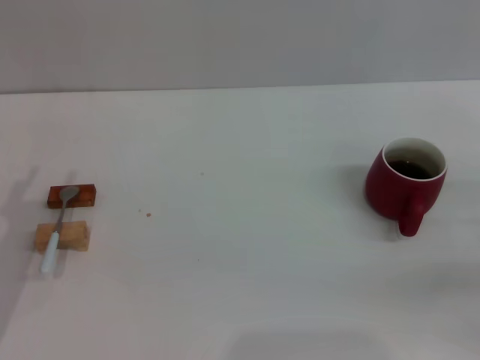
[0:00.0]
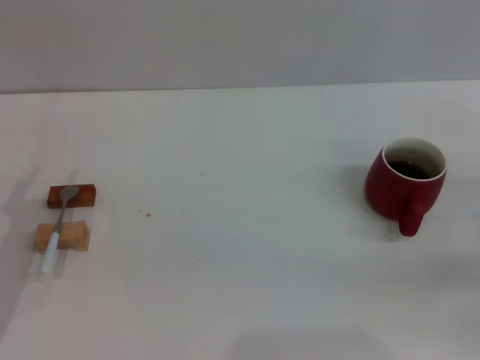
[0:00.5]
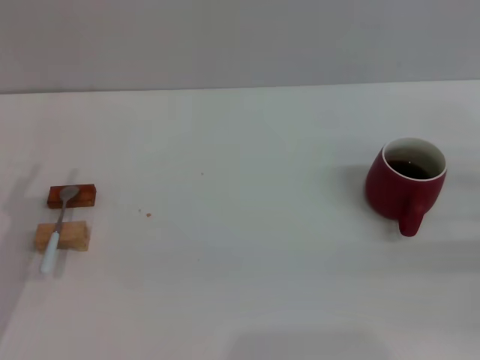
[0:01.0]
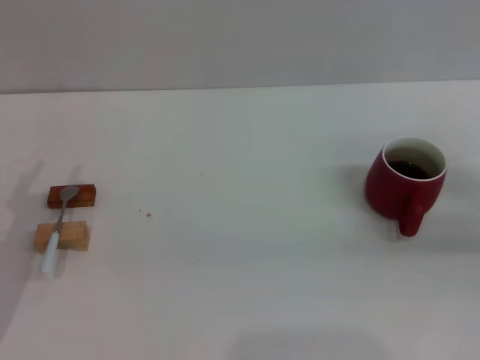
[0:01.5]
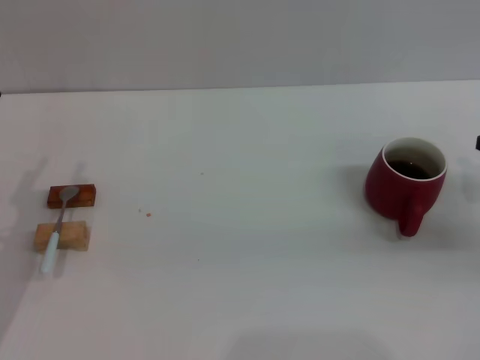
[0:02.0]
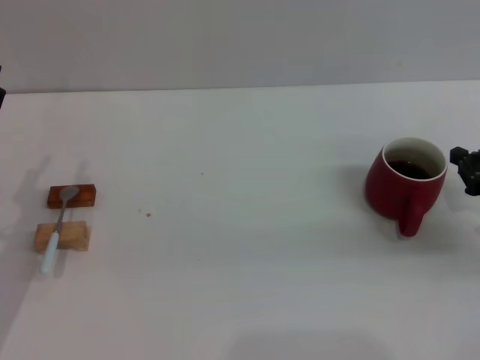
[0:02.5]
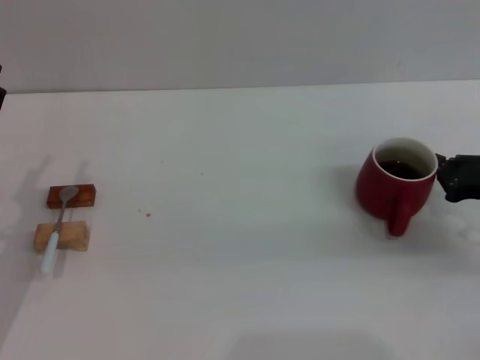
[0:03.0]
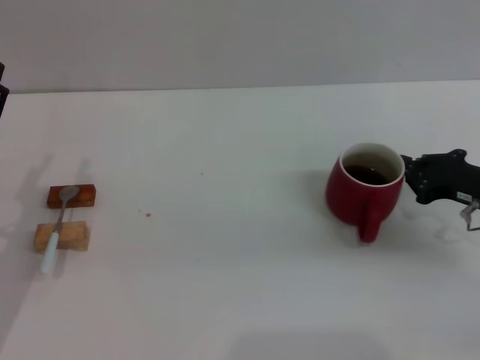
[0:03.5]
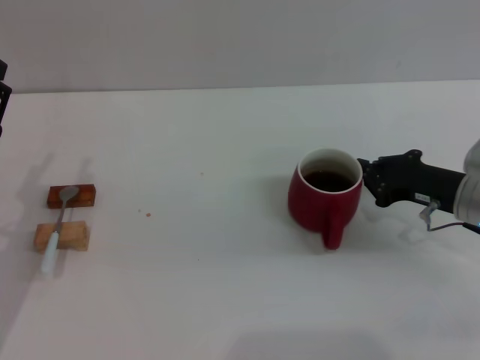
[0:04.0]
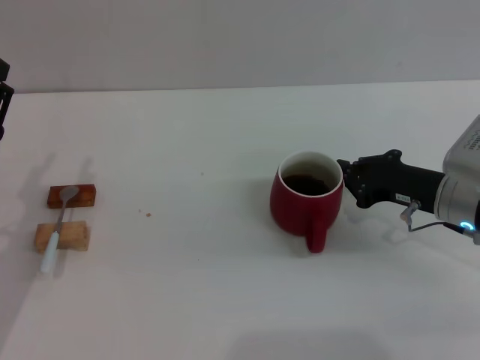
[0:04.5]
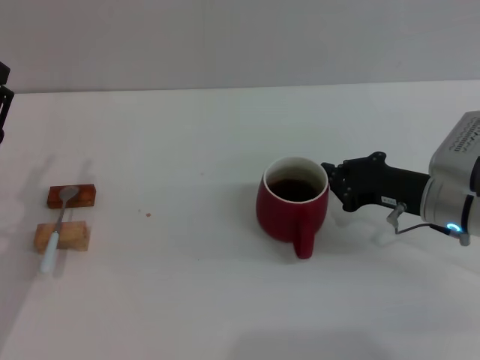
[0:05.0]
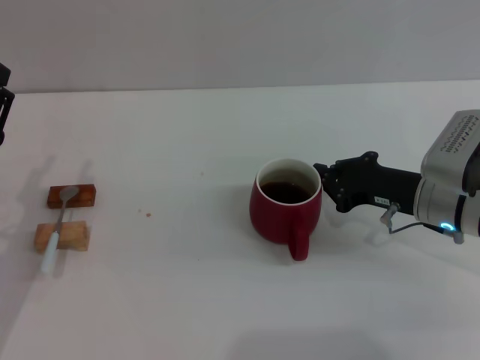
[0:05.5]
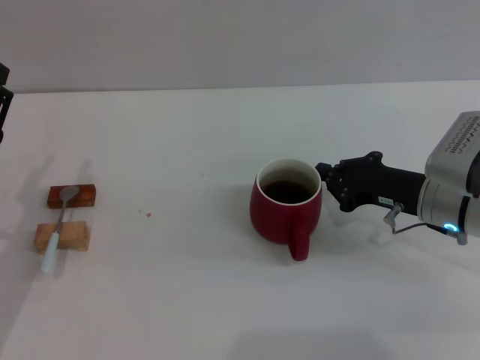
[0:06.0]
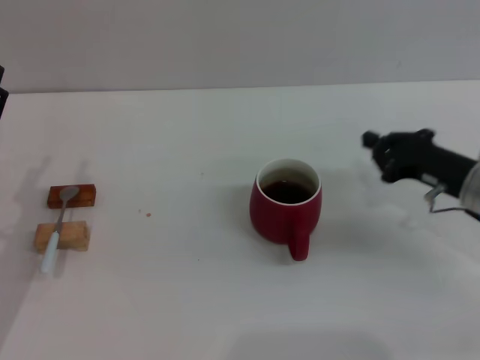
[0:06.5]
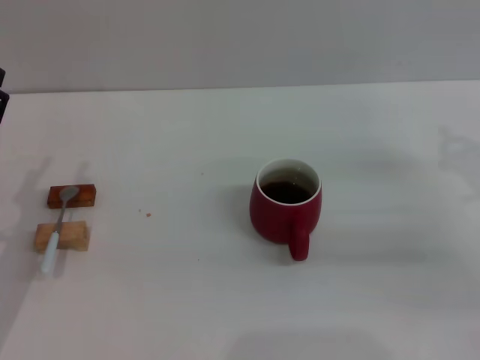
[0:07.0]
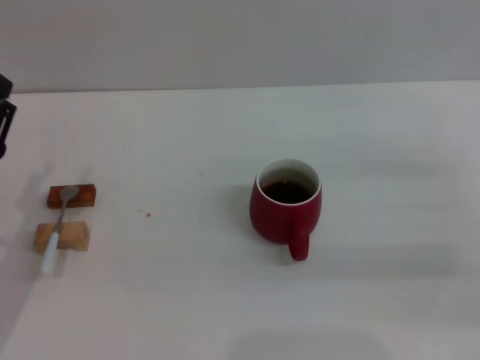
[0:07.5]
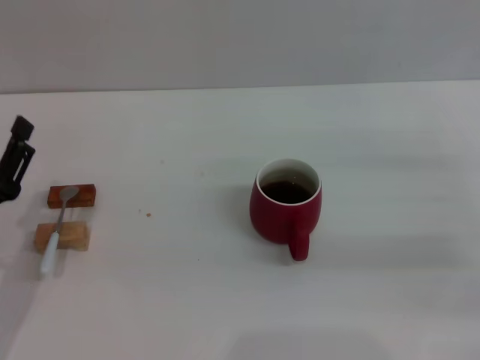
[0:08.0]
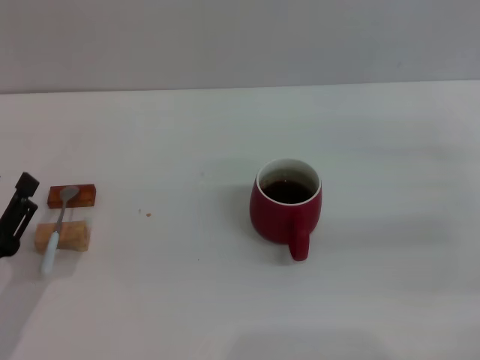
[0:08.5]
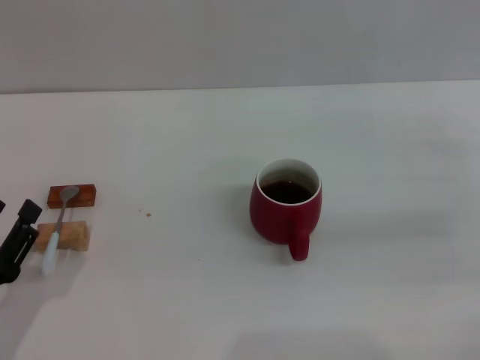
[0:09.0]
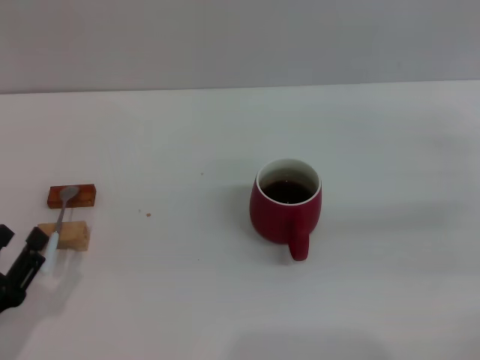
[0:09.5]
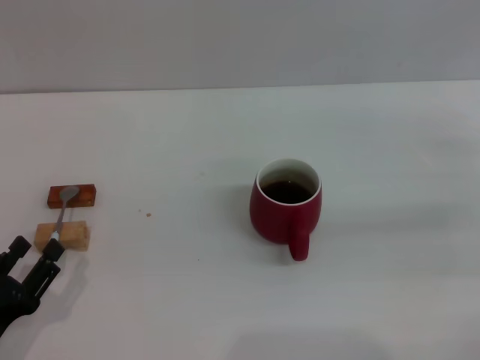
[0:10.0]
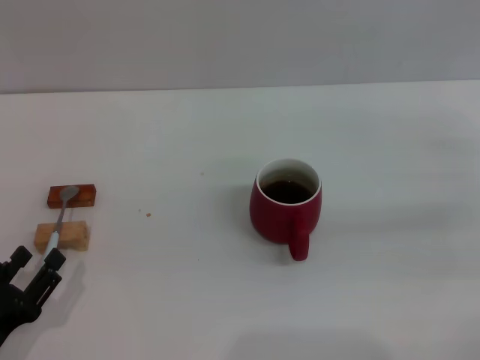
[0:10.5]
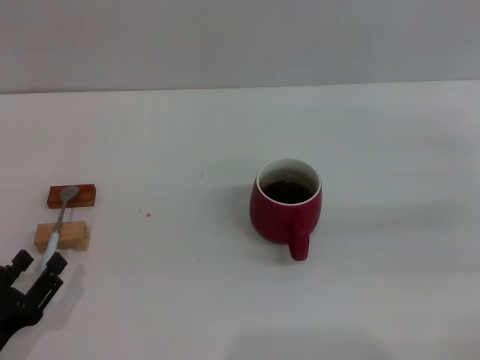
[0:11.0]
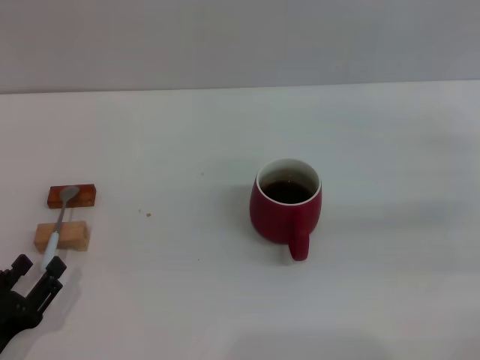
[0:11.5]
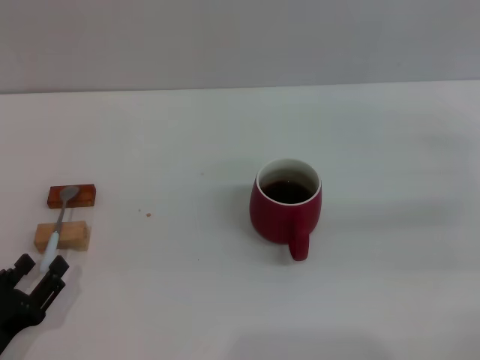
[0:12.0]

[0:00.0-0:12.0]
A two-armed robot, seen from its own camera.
Task of the whole recording: Move the red cup to the center, lift the blue spoon, stir it three times in the cup, and put the spoon into the cup.
Step, 0:00.0 to 0:06.0: Move the cup with coffee to the center of view with the right gripper.
0:00.0 to 0:02.0: The right gripper closes its fingers.
0:02.0 to 0:04.0: The right gripper goes roughly 10 cm to the left.
0:04.0 to 0:06.0: There are only small adjustments of the grippers.
0:06.0 to 0:08.0: The right gripper shifts about 15 cm to the right, and opens up.
0:08.0 to 0:10.0: The left gripper heads backward, covering approximately 5 cm.
0:10.0 to 0:12.0: The grippers make only small movements.

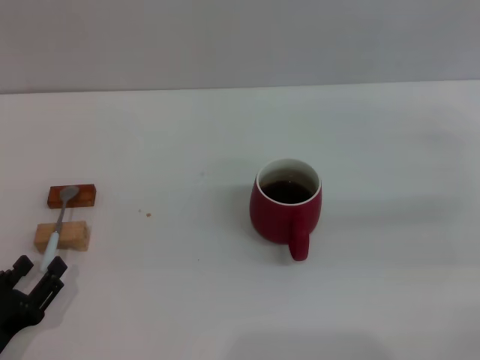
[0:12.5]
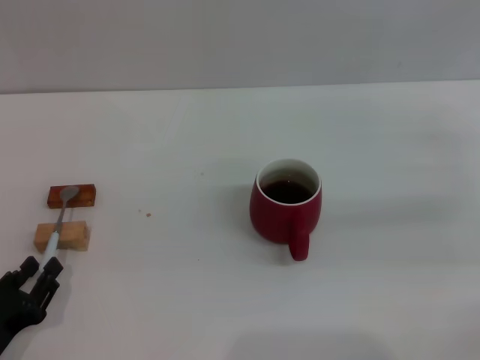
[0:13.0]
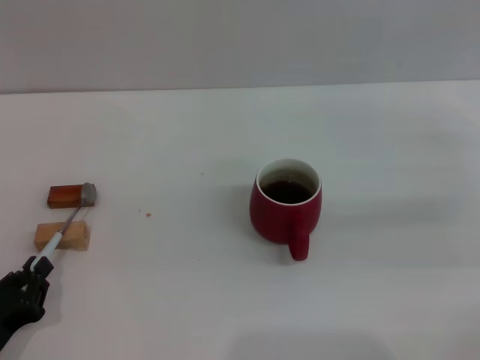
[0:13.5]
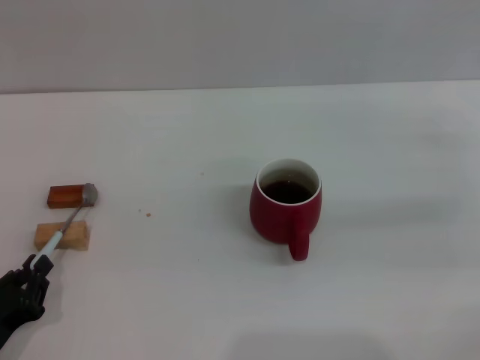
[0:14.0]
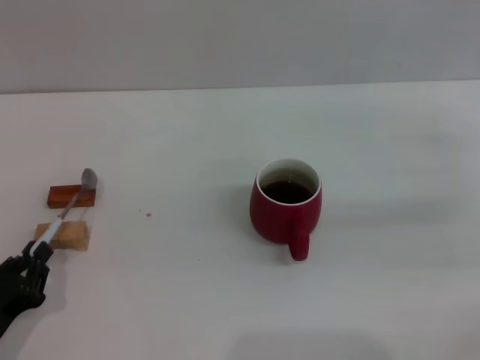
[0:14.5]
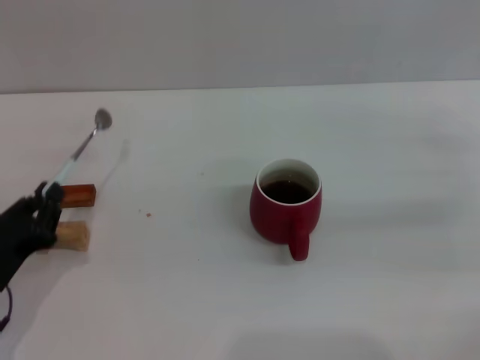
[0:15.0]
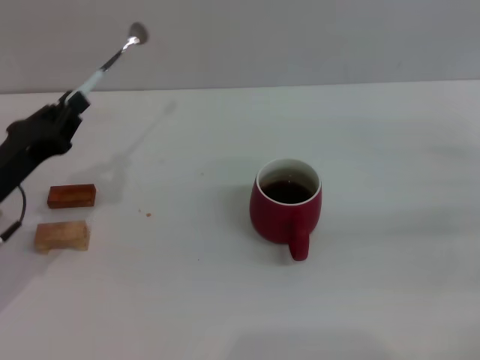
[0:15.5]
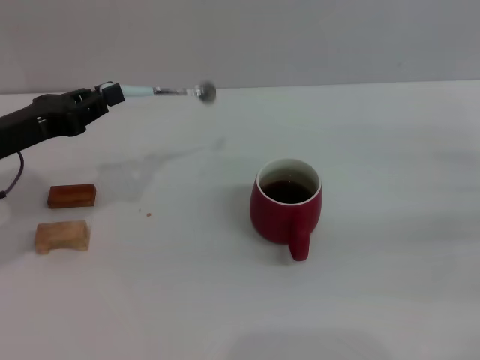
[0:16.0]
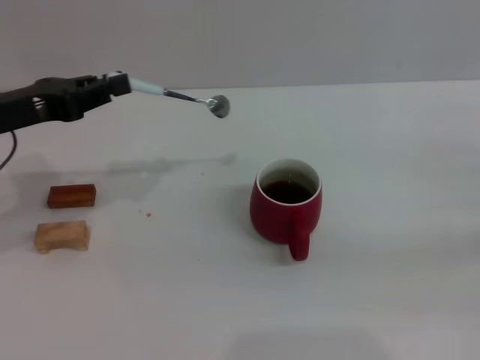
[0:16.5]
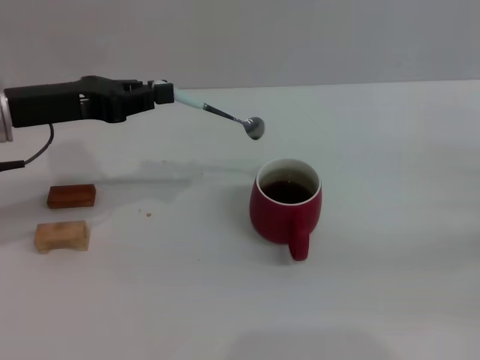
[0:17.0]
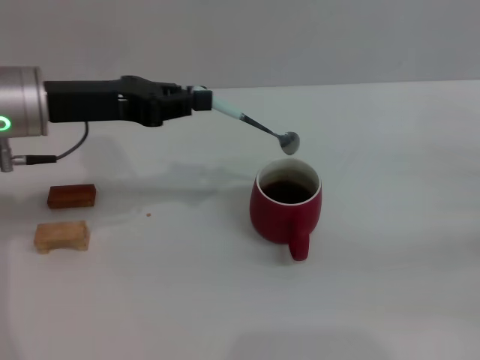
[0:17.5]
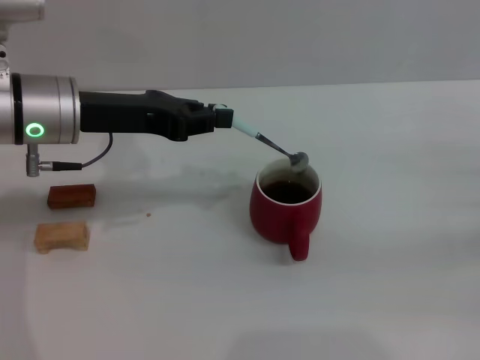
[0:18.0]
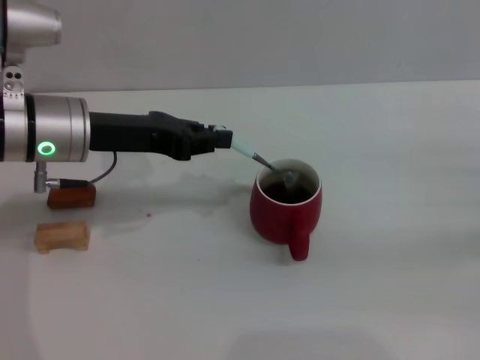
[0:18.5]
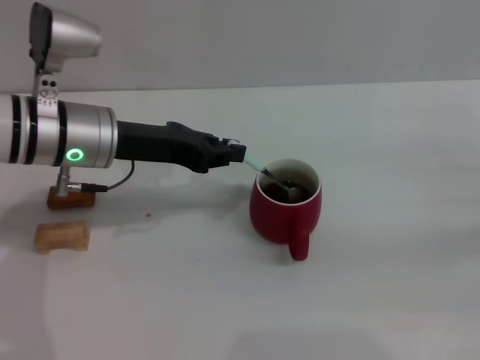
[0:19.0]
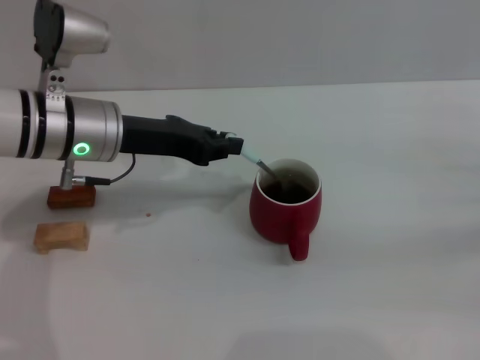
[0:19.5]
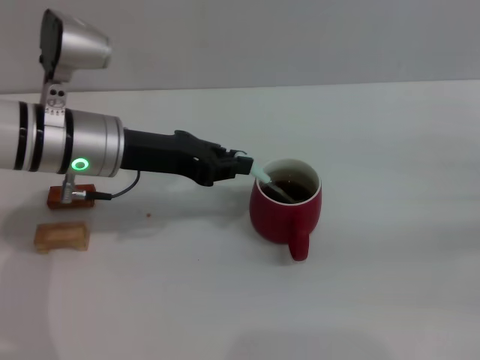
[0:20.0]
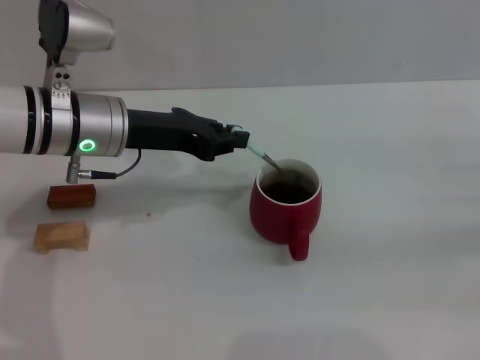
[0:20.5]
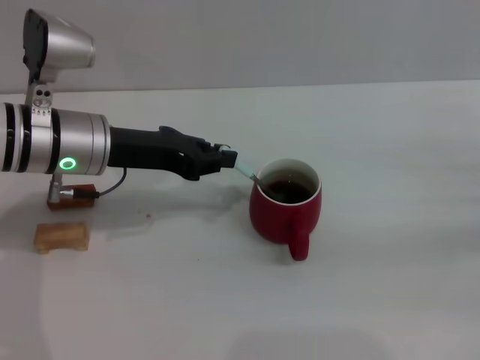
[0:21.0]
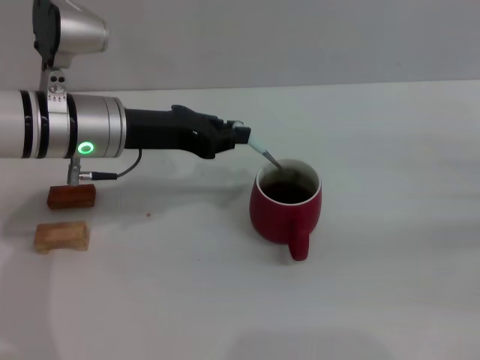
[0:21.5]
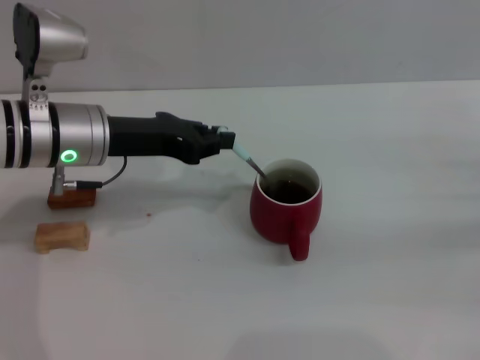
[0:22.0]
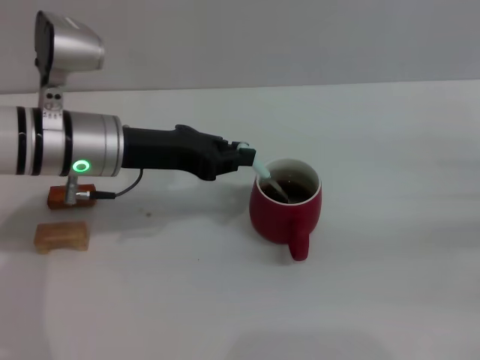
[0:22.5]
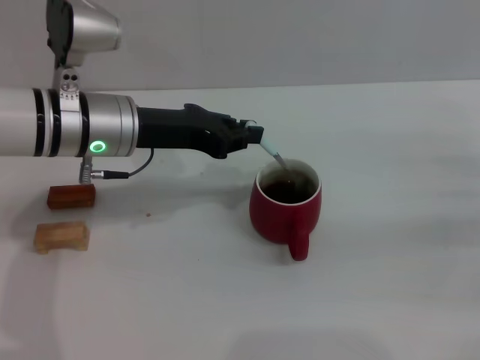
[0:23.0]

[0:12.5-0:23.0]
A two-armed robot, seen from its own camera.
Task of the whole recording: Move the red cup to the center, lift the blue spoon, stir it three times in the cup, and put the spoon into the cup.
Step, 0:12.5 to 0:15.0: Pick up the spoon with the left gripper.
0:12.5 to 0:14.5: The left gripper closes.
0:14.5 to 0:16.5: The right gripper ends up some 10 cm from where it was, while the left gripper moves upward and forward, some 25 cm.
0:16.5 to 0:19.0: The left gripper heads to the right, covering approximately 10 cm.
0:19.0 to 0:23.0: The grippers move only a little.

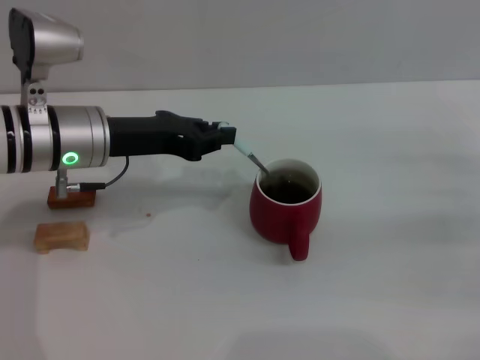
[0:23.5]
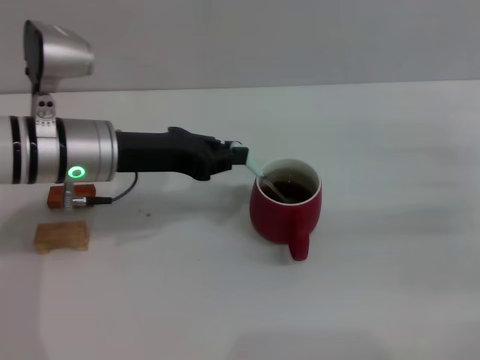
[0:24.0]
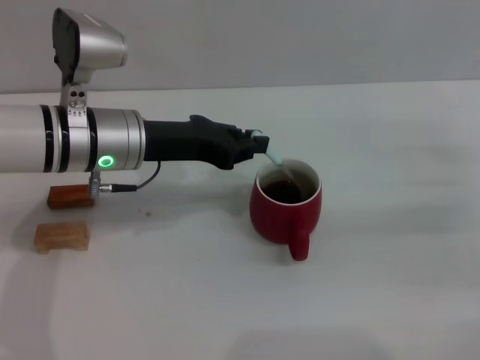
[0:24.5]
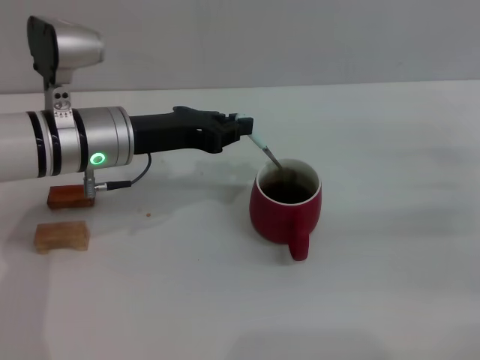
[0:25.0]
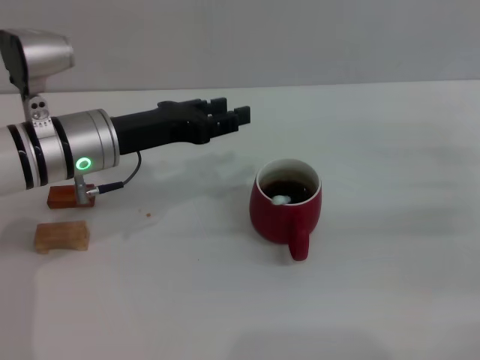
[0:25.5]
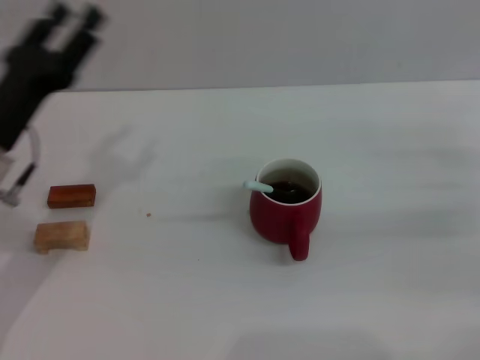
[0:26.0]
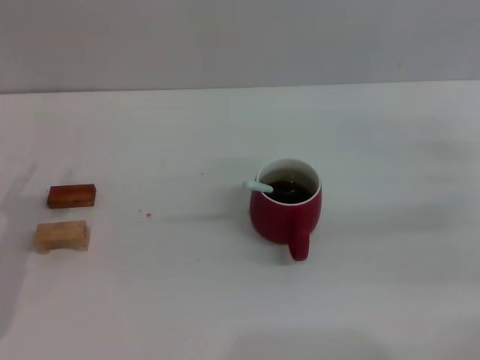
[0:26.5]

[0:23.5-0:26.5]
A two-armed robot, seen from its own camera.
Task of the whole recording: Move the red cup to the center, lift the blue spoon, stir it three times in the cup, and put the spoon into the cup.
0:23.5 to 0:25.0: The grippers stay close to where they were, moving slightly.
0:25.0 to 0:26.5: The left gripper moves backward, to the left and downward, approximately 20 cm, and opens its fingers.
